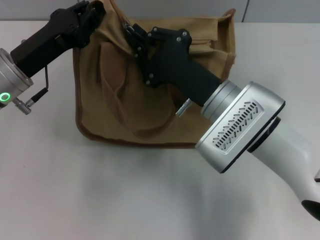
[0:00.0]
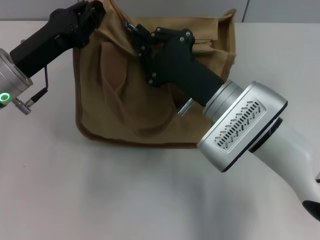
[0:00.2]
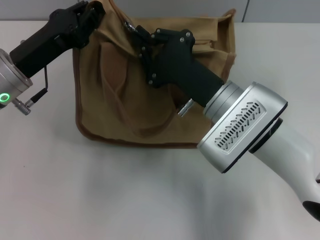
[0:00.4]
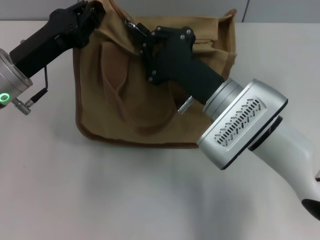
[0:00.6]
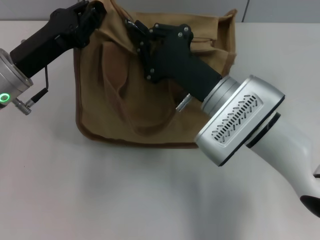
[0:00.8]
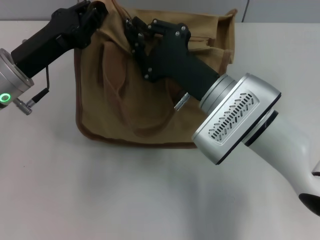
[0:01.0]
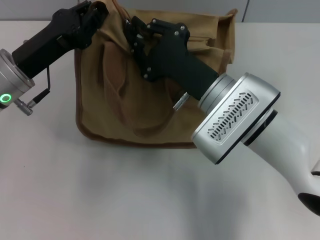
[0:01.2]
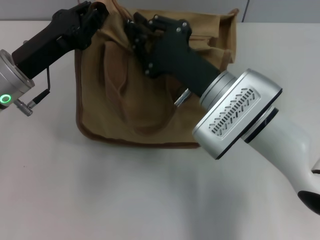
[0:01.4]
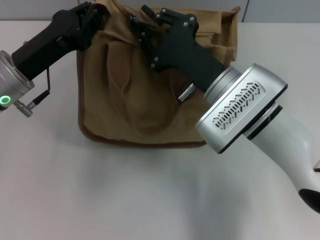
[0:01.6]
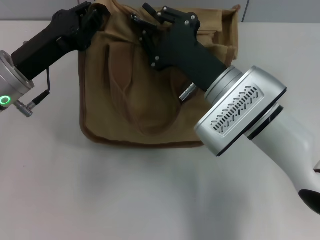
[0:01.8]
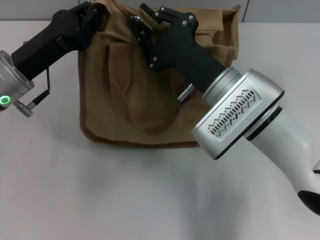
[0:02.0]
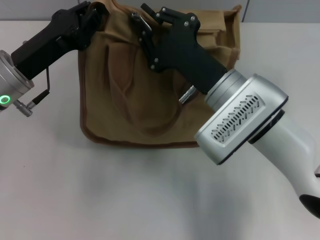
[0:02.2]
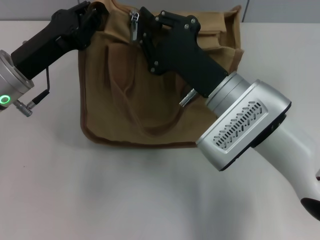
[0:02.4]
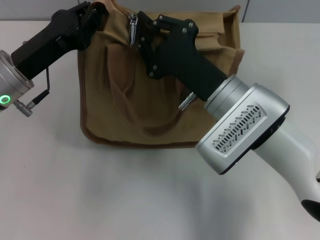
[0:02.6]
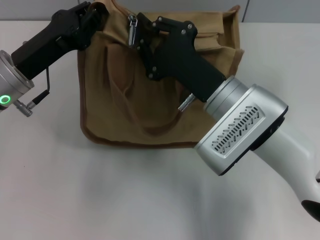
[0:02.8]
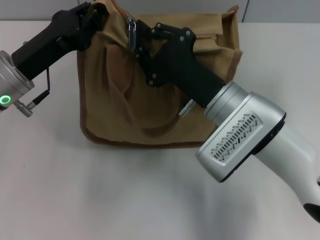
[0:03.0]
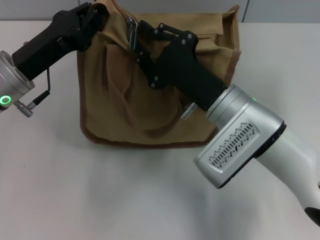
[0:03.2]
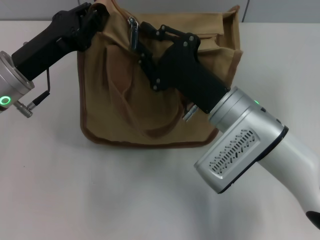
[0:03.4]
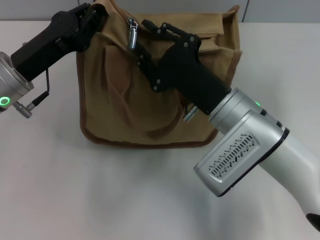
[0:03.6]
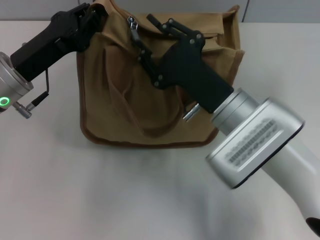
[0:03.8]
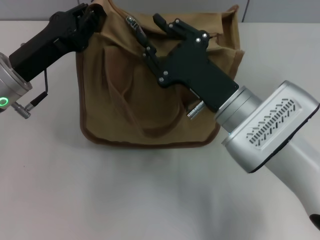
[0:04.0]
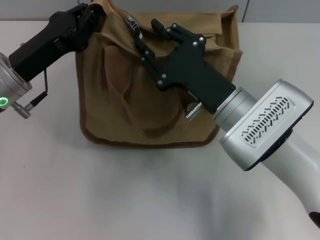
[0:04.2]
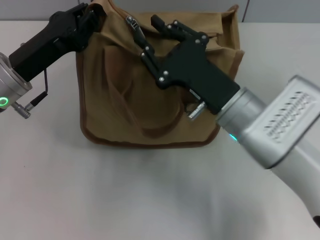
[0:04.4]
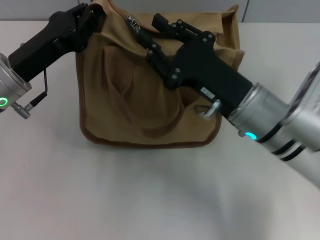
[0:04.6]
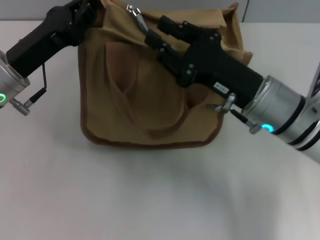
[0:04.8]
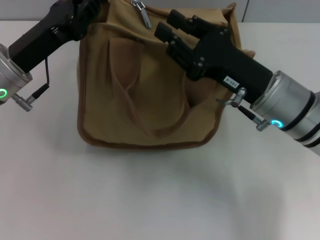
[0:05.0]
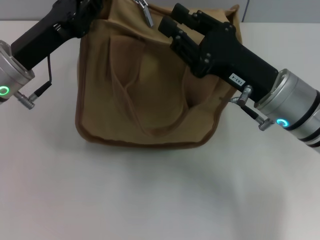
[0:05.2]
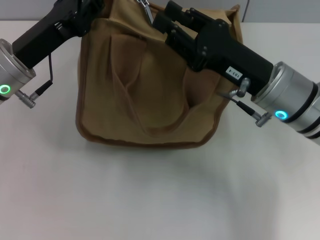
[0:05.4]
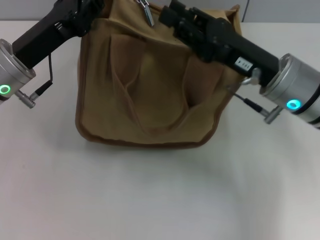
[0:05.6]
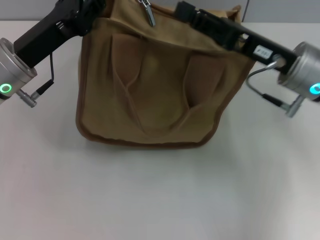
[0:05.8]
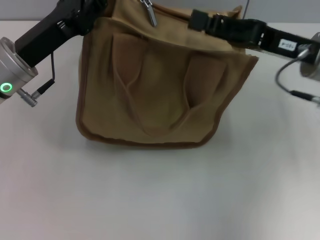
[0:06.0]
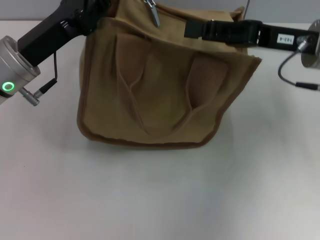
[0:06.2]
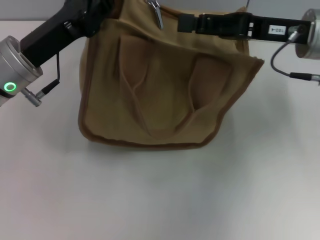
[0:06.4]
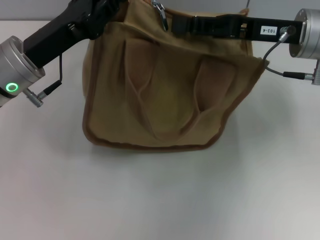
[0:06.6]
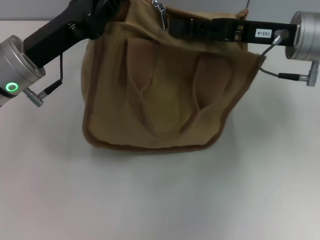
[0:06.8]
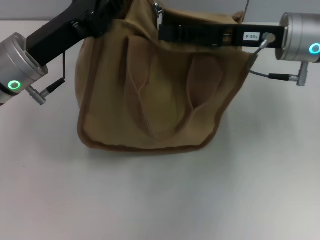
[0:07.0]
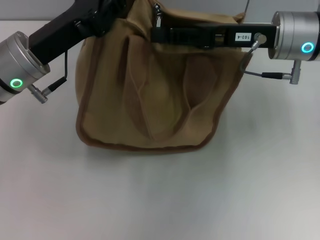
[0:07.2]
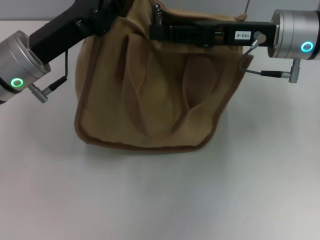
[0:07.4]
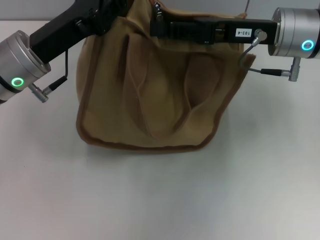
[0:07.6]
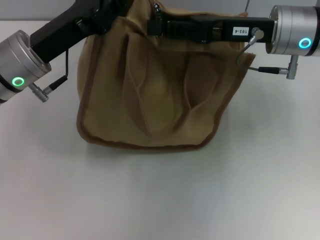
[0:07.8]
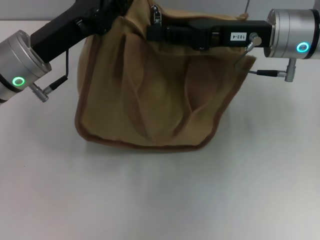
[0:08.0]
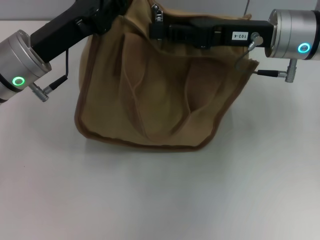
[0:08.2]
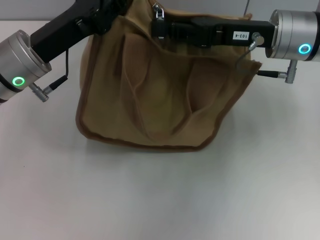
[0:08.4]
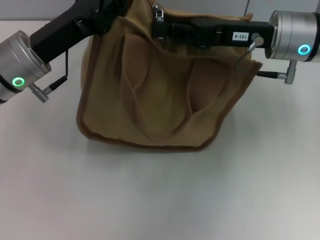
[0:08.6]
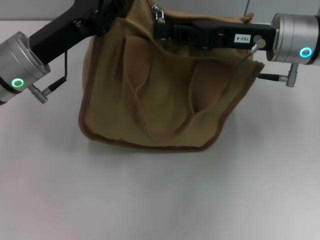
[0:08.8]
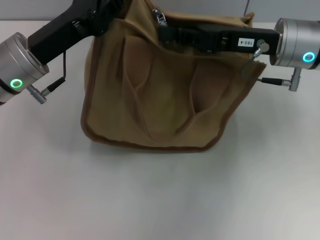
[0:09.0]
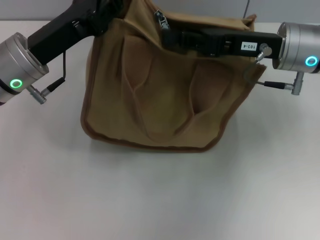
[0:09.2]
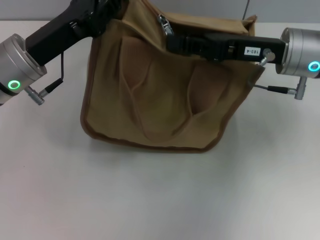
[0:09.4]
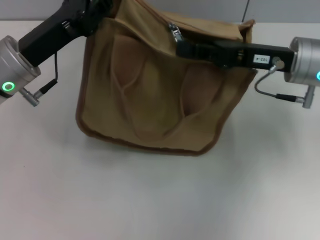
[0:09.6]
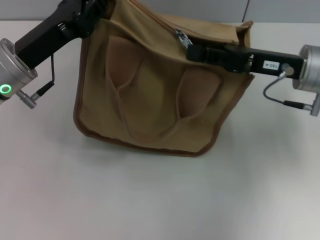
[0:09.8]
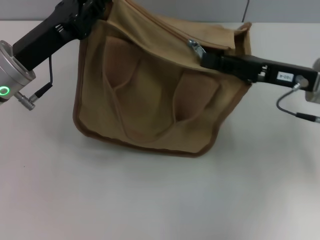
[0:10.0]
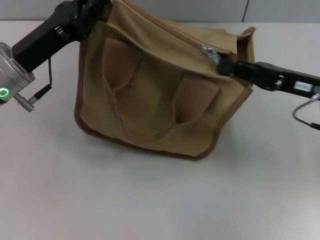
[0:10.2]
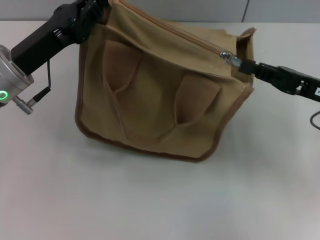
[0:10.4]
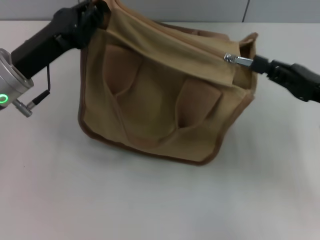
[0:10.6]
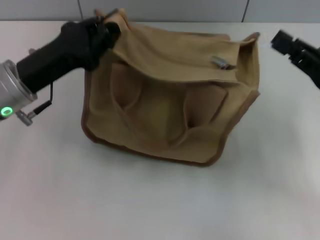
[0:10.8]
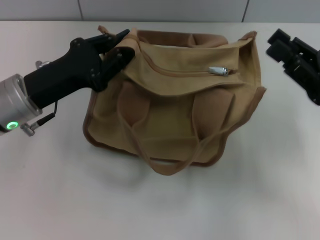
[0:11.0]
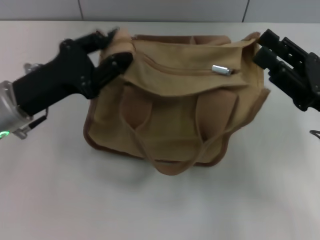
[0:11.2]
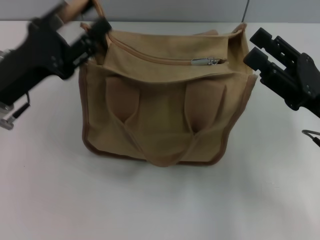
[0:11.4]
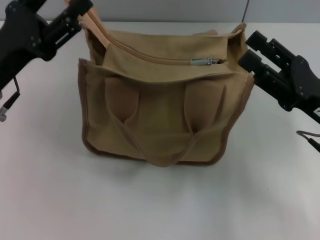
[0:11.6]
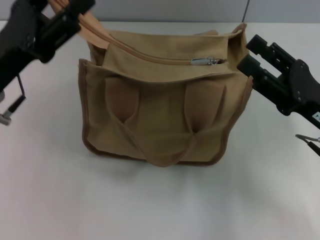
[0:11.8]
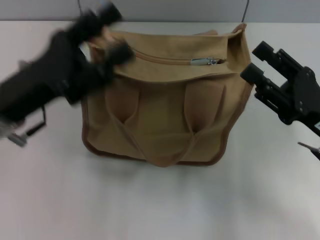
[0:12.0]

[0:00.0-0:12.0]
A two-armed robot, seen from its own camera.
Step, 0:00.0 to 0:10.6: Pull up the zipper with your right hand.
Step, 0:10.8 to 0:12.0: Grab the zipper with your left hand.
0:00.0 to 0:03.0: The grippers move only a little.
0:04.4 to 0:06.0: The right gripper travels to the right, forward and upward by about 15 cm.
0:06.0 to 0:07.6: The right gripper ends up approximately 5 cm from where it was.
0:07.6 to 0:09.0: The right gripper closes its fingers.
0:09.0 to 0:10.4: The right gripper moves to the right, backward and downward, approximately 15 cm.
0:10.4 to 0:12.0: The two grippers go about 5 cm backward. The left gripper opens its fingers, while the right gripper opens its fingers.

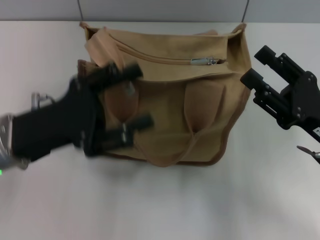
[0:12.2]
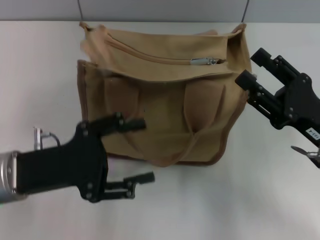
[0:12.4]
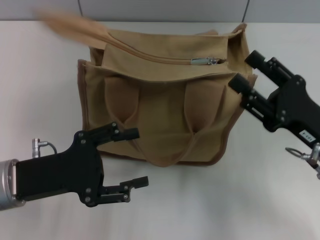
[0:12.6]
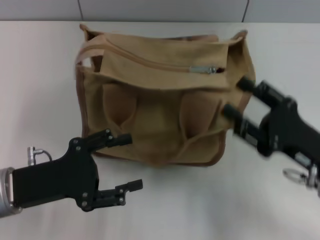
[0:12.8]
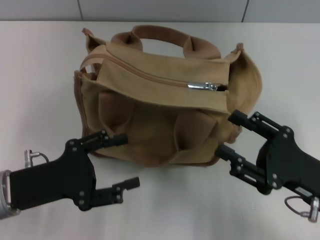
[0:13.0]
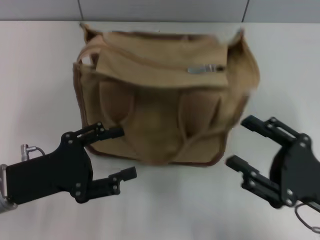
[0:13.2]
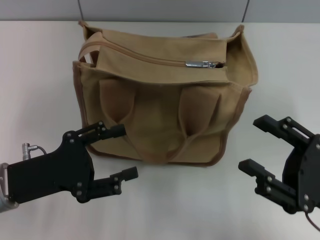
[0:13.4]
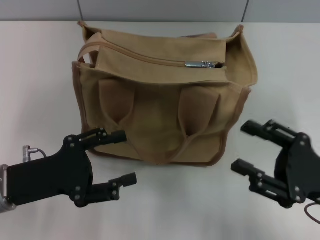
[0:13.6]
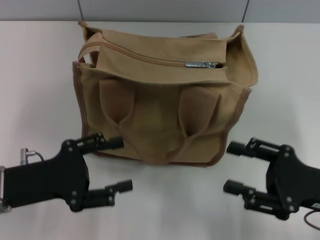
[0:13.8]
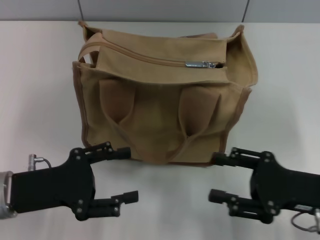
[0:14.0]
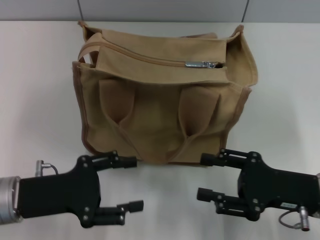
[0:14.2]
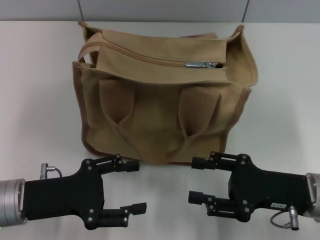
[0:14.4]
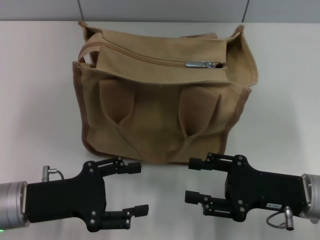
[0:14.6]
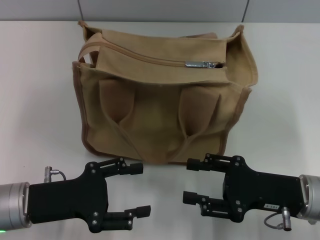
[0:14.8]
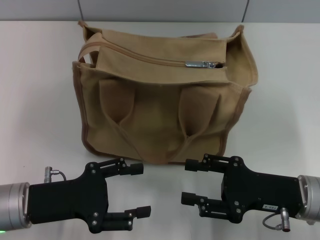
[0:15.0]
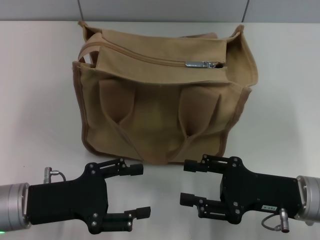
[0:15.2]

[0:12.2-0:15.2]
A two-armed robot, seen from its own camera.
0:12.2 to 0:13.8: The left gripper ends up some 5 cm from where it was.
0:13.8 to 0:15.2: The right gripper shifts by approximately 5 cm.

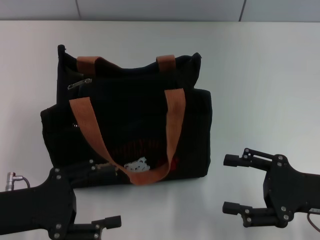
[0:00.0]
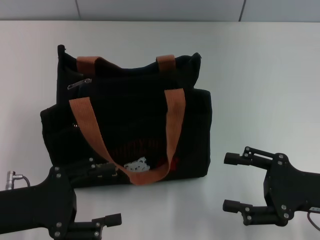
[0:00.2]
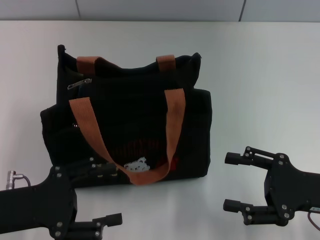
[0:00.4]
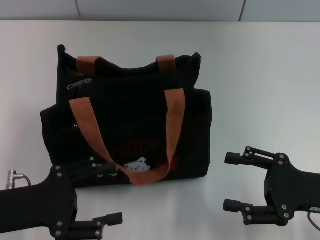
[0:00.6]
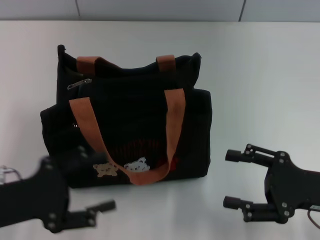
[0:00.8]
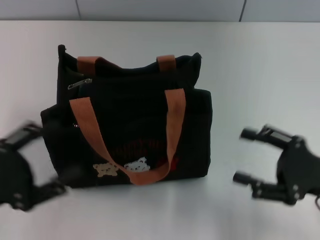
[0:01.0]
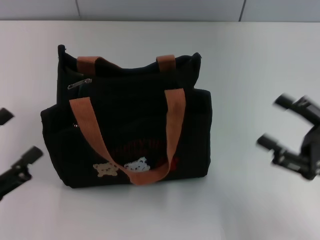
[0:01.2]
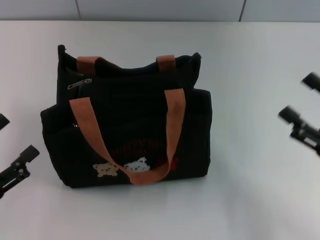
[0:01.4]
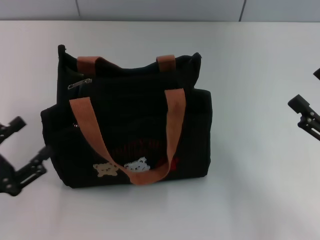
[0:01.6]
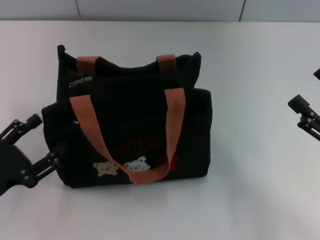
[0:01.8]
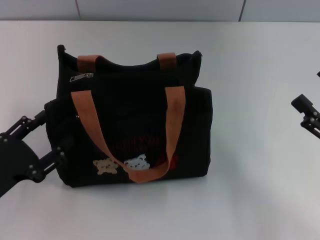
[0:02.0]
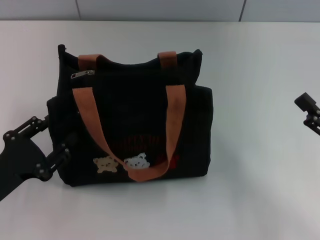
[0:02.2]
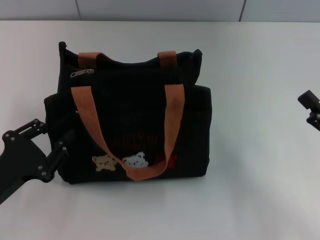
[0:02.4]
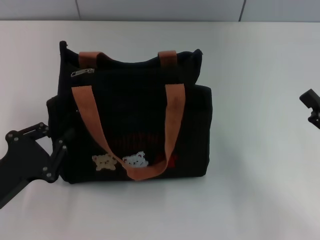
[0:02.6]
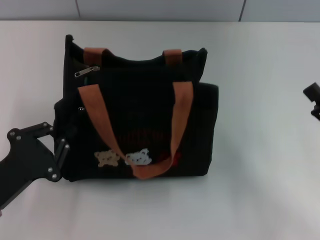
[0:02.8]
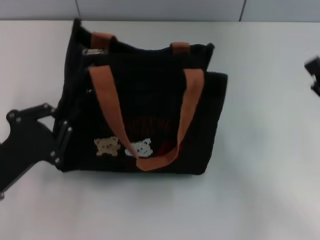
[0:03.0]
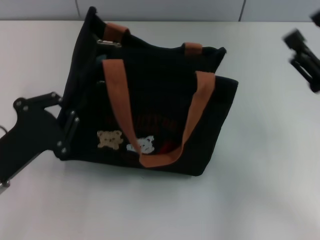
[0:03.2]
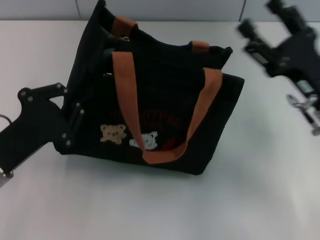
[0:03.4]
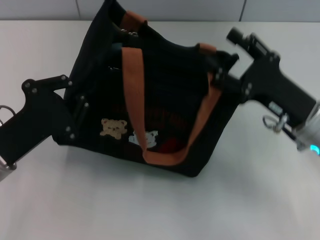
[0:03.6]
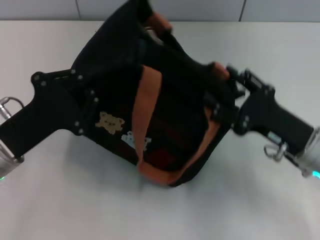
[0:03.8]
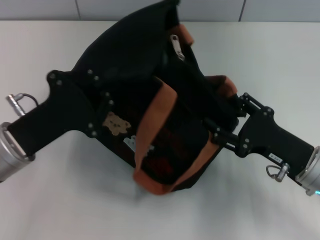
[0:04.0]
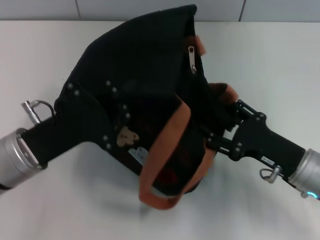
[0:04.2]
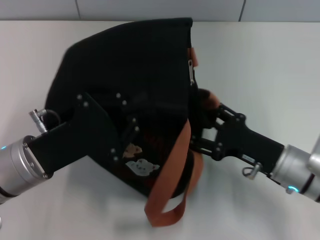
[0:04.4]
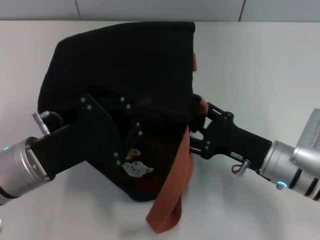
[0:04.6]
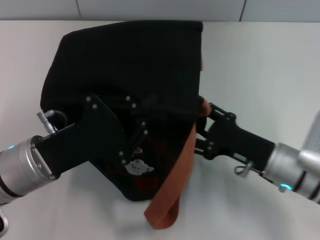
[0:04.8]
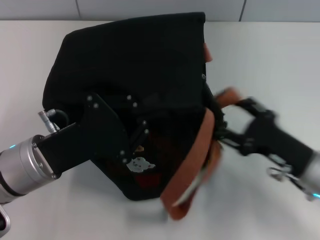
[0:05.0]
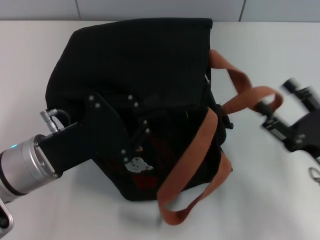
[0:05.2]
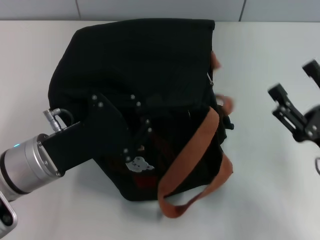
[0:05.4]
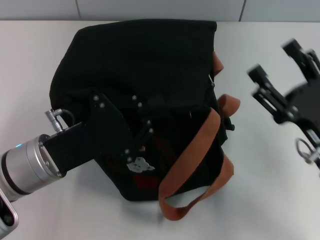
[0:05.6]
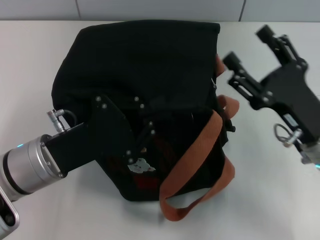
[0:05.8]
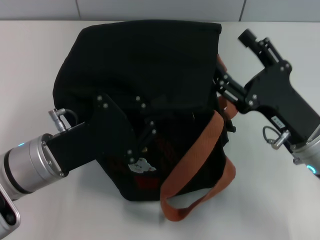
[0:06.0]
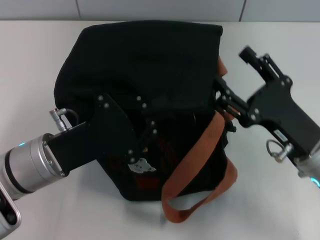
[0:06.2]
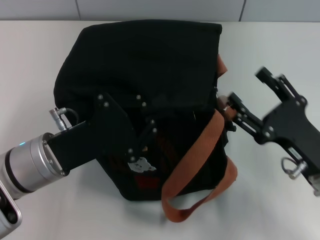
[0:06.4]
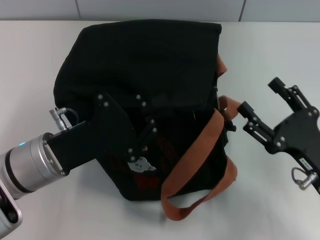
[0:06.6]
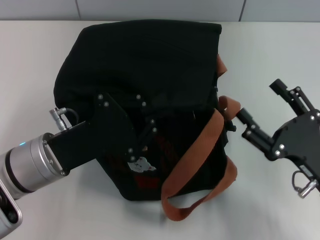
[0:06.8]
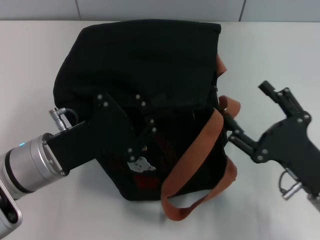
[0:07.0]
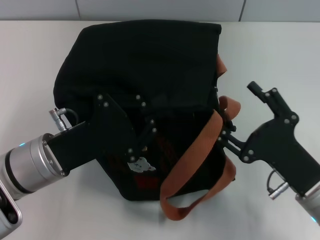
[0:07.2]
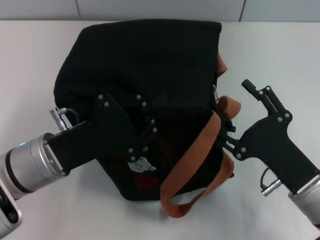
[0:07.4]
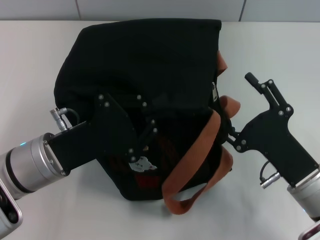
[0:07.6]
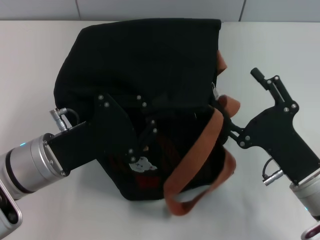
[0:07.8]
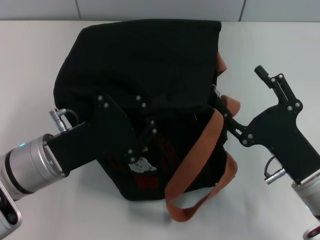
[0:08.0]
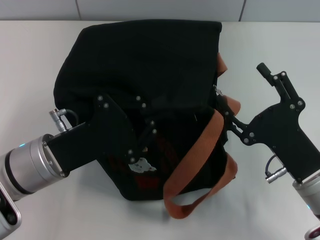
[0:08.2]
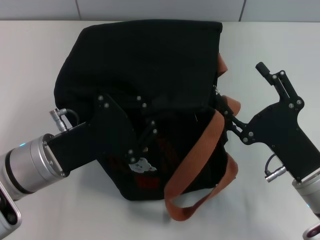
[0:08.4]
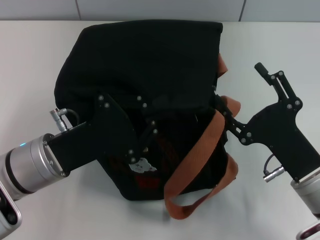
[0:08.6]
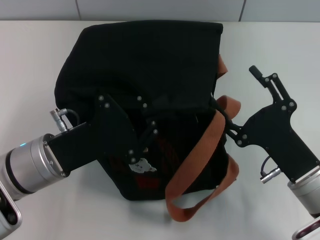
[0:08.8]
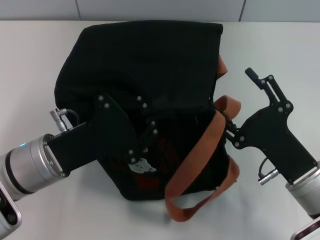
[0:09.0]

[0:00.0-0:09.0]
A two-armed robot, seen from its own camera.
0:00.0 to 0:01.6: The left gripper ends up some 5 cm from where it was.
0:01.6 to 0:03.0: The left gripper moves to the right, approximately 5 cm, and closes up.
0:03.0 to 0:04.4: The right gripper is displaced to the left and downward by about 10 cm. Meanwhile the left gripper moves to the right, some 5 cm.
0:04.4 to 0:06.0: The right gripper moves roughly 5 cm to the right and comes back.
0:06.0 to 0:07.6: The right gripper changes place by about 5 cm.
0:07.6 to 0:09.0: The grippers move only a little.
